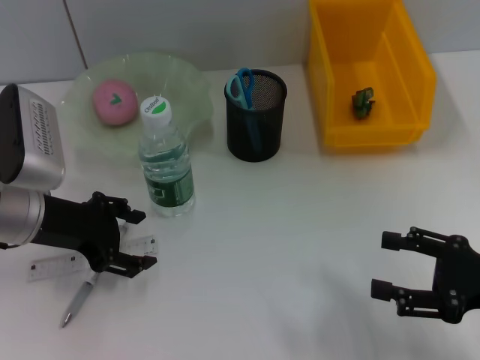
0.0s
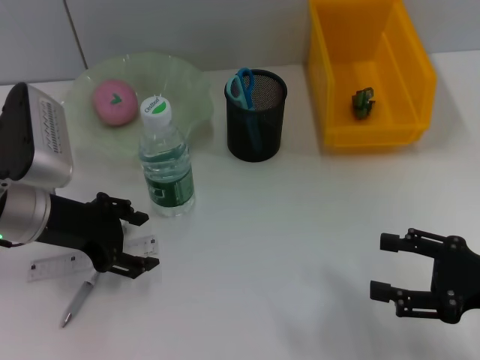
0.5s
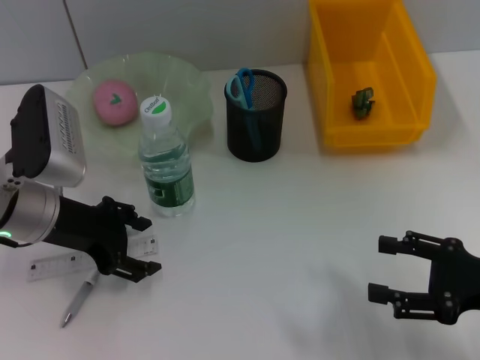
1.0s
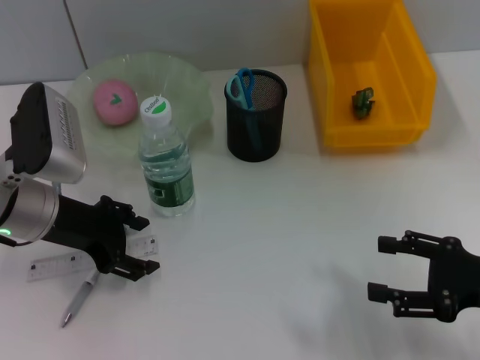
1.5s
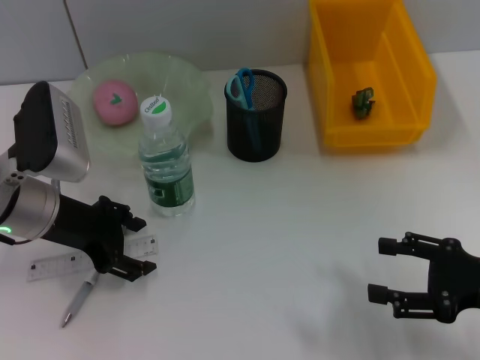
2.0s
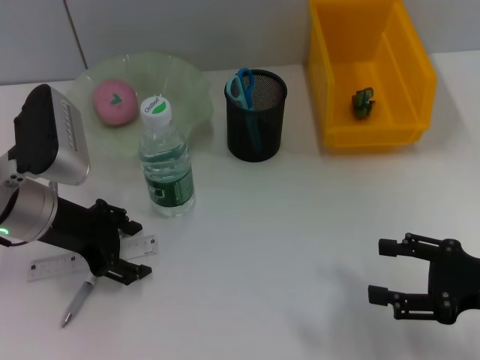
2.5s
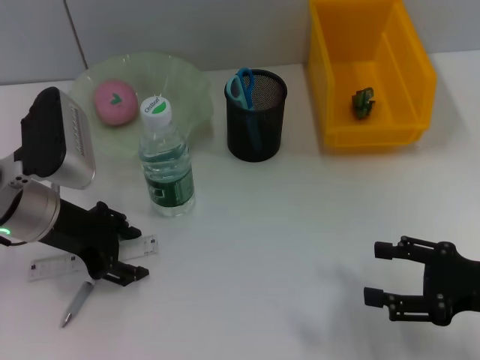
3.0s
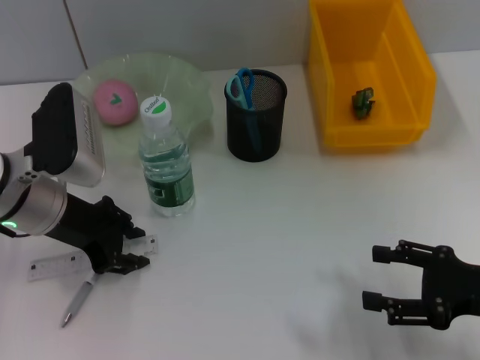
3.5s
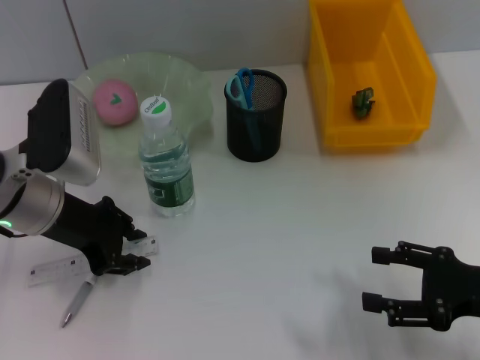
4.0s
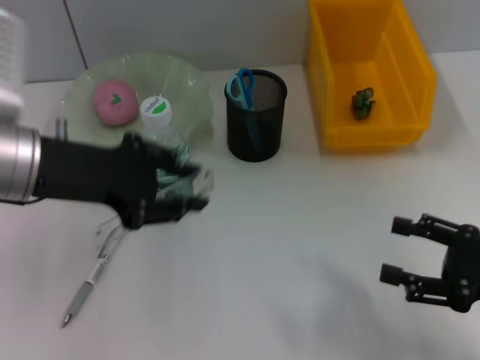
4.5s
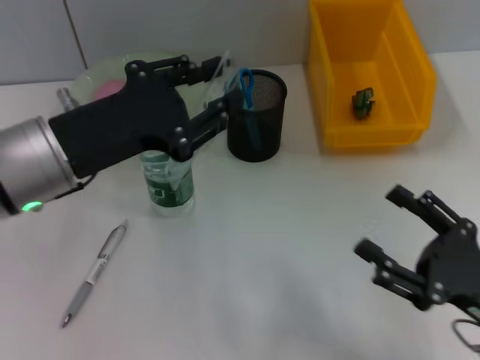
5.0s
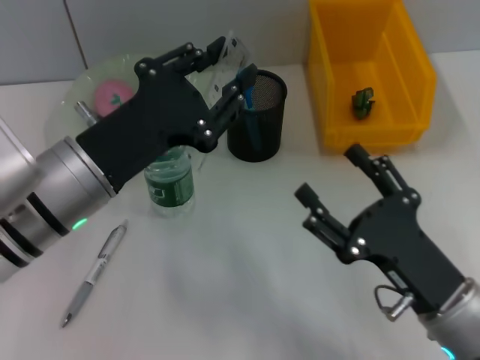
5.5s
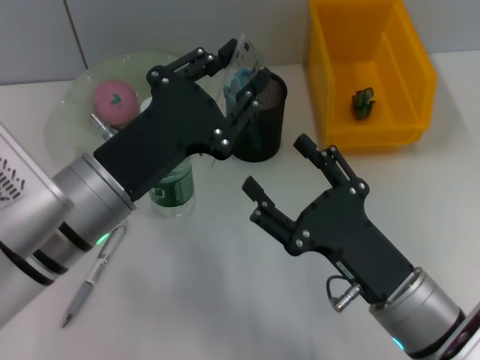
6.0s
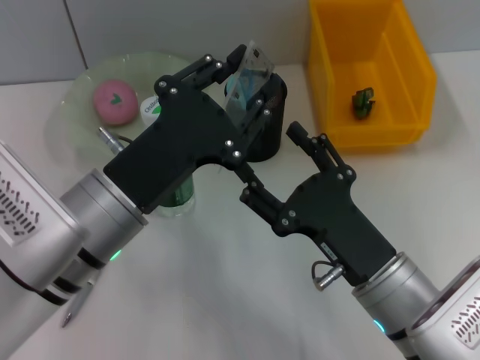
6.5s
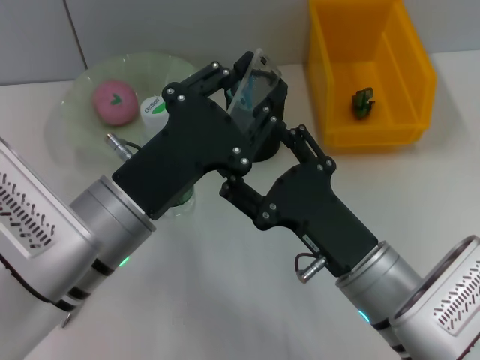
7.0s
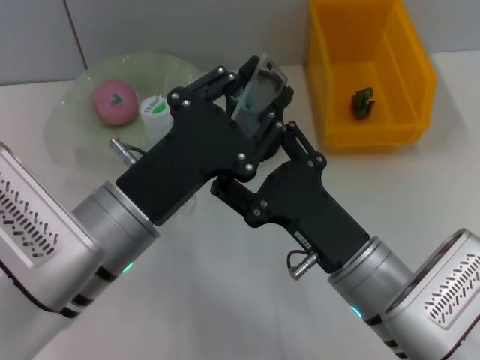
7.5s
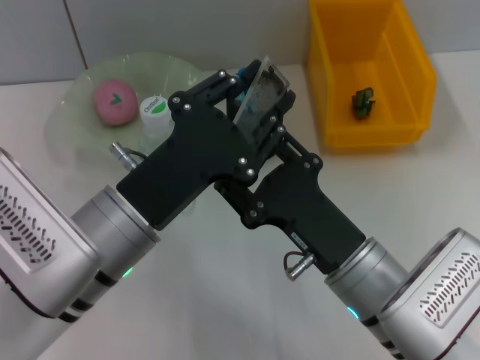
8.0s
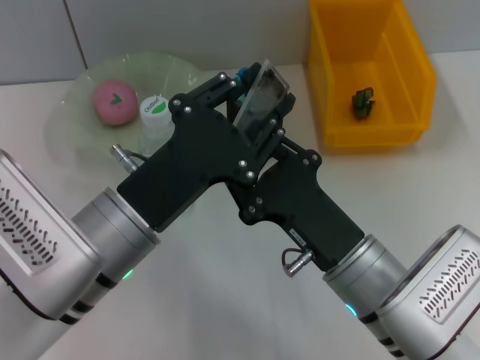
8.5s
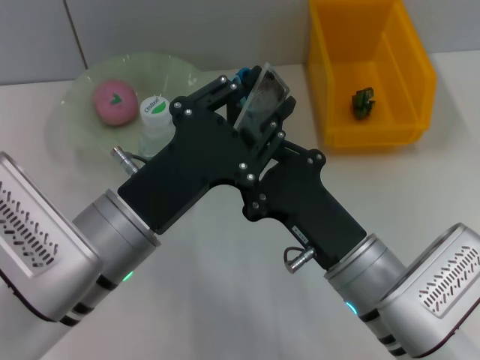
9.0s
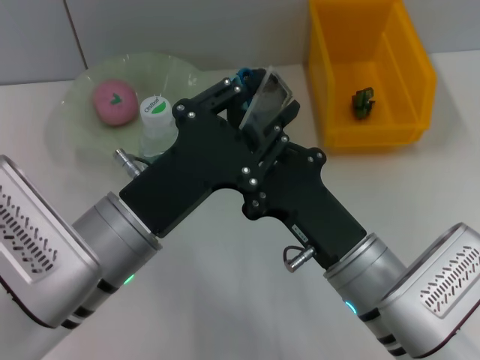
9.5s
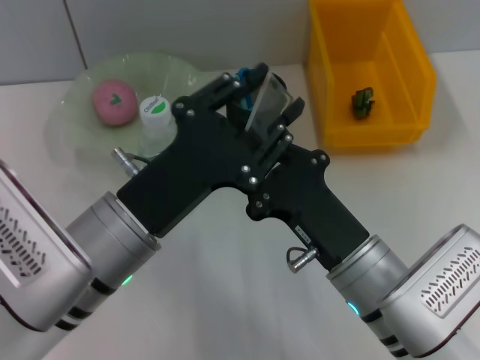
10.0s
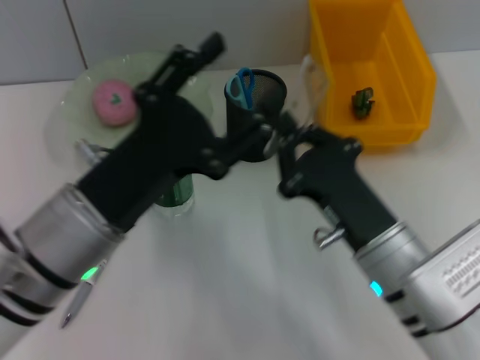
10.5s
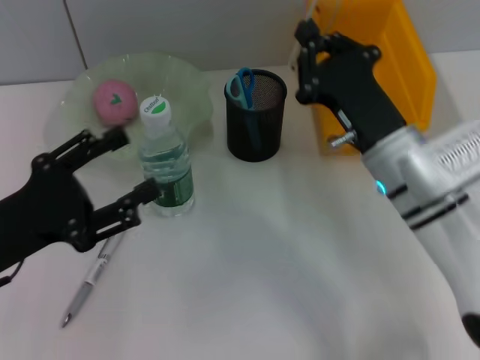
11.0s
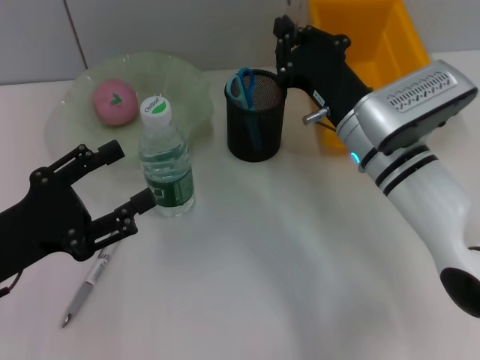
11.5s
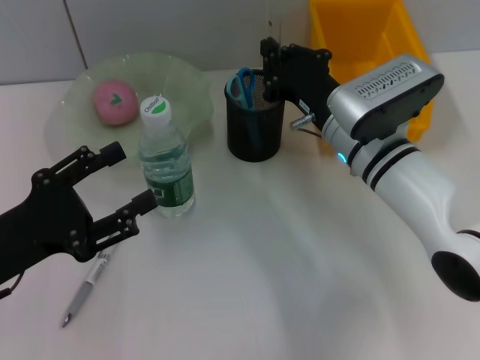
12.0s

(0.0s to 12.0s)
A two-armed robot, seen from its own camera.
Step, 0.0s - 3.5s: Grab the ruler with the left hand.
0.0s - 2.0s: The grippers stay close to where they were, moving slightly.
2.0s - 4.0s: The left gripper closes its fingers.
4.0s - 6.0s: The right gripper heads to the left, covering about 15 cm. The left gripper heads backward and to the right, covering some 10 cm.
8.0s - 10.0s: The right gripper closes.
10.0s - 12.0s: The right gripper travels forward by about 15 cm, while the left gripper heads to the left, covering approximately 15 cm.

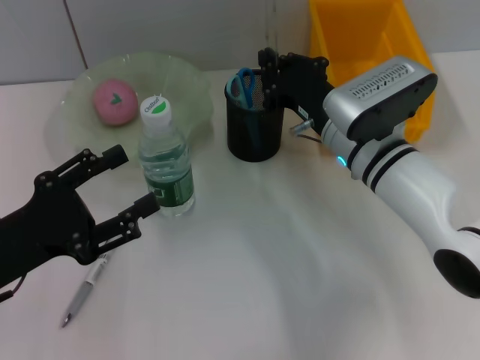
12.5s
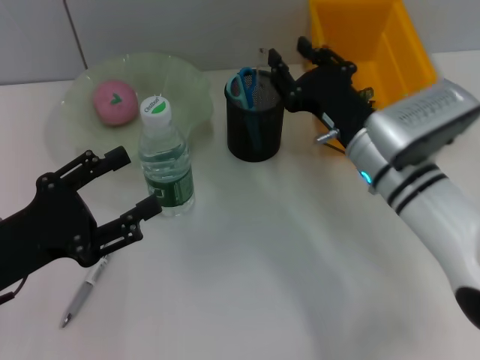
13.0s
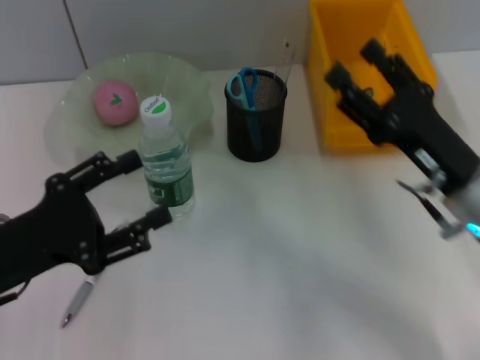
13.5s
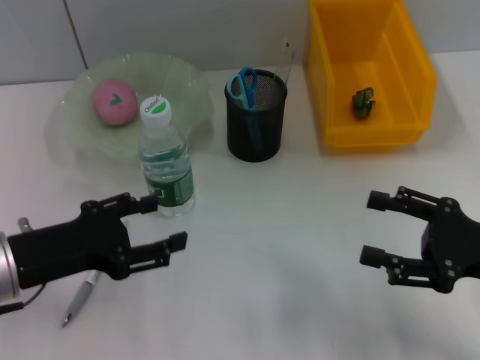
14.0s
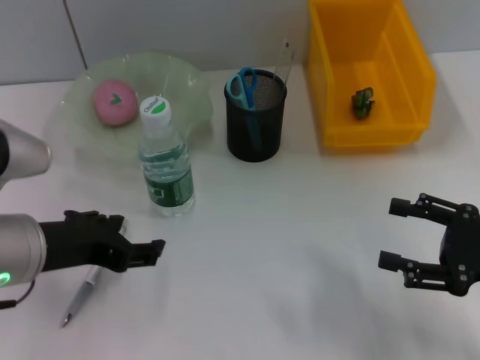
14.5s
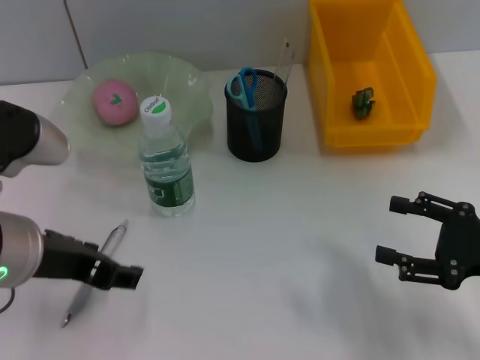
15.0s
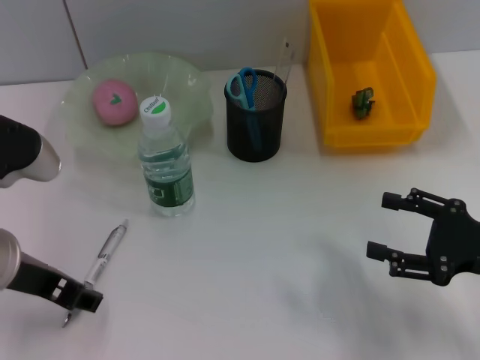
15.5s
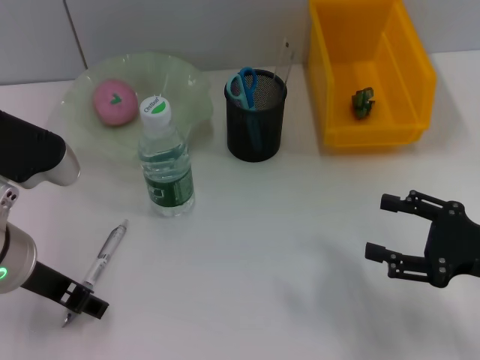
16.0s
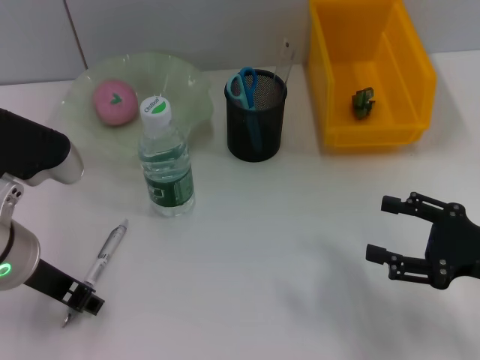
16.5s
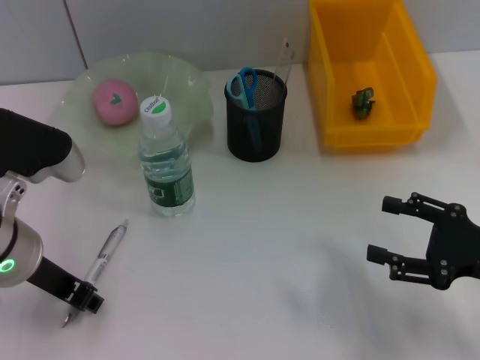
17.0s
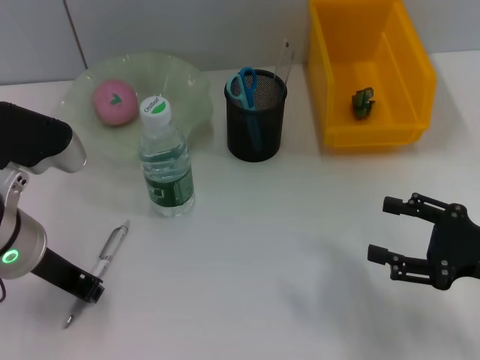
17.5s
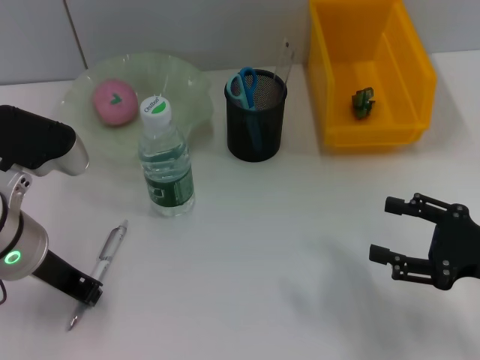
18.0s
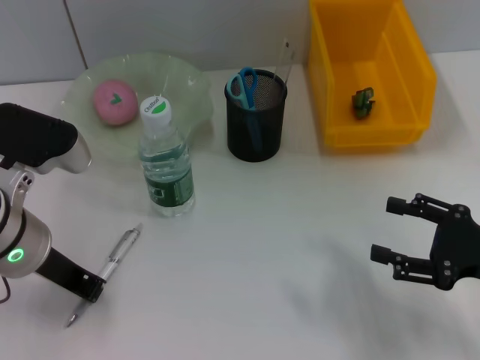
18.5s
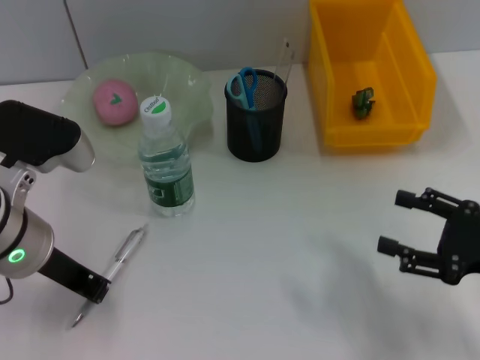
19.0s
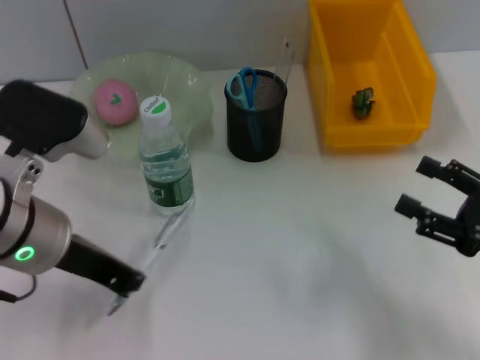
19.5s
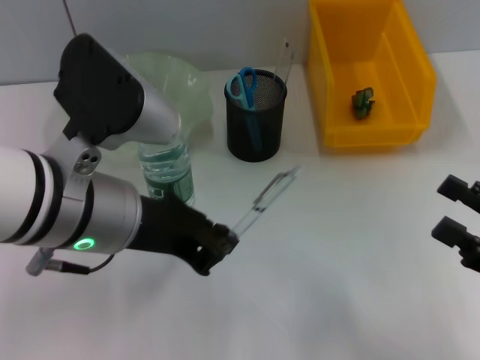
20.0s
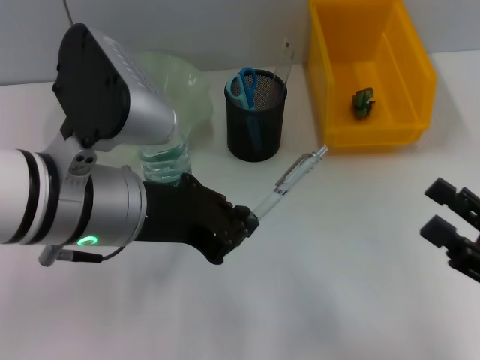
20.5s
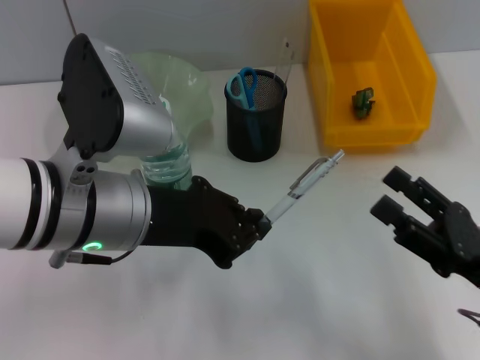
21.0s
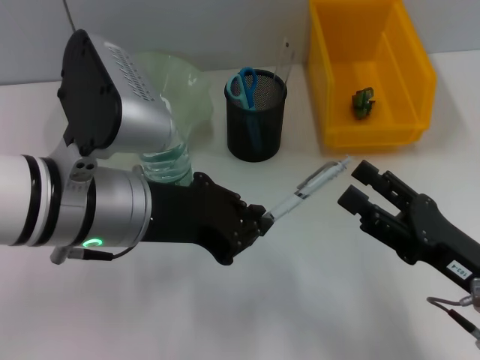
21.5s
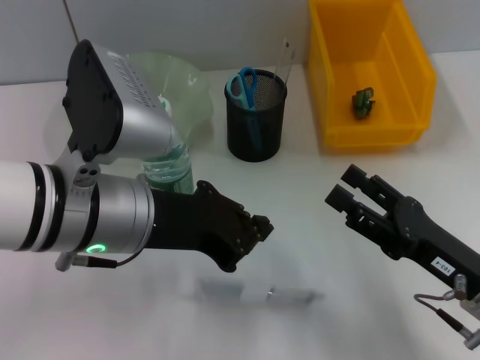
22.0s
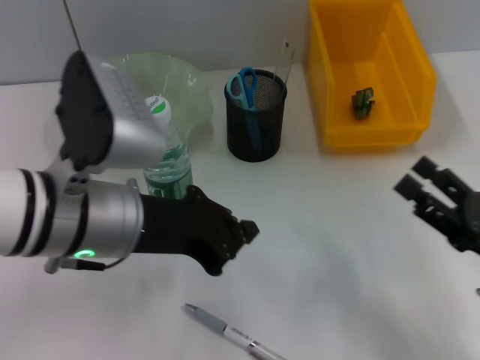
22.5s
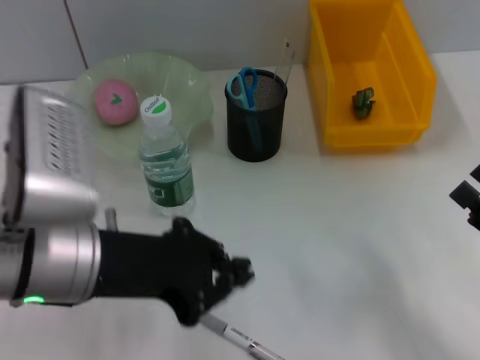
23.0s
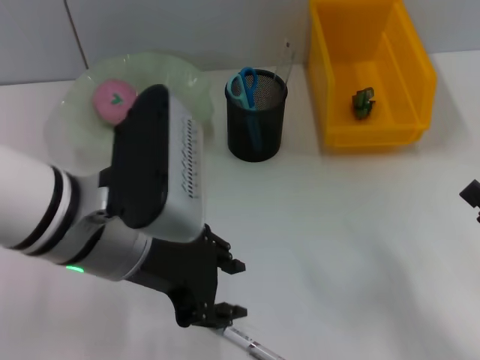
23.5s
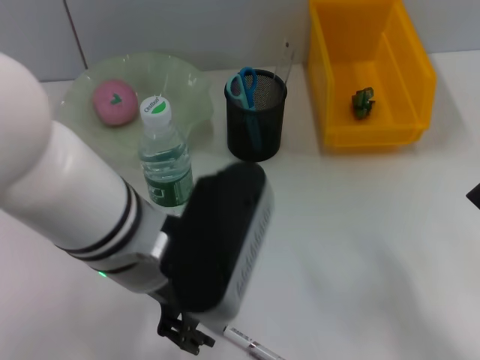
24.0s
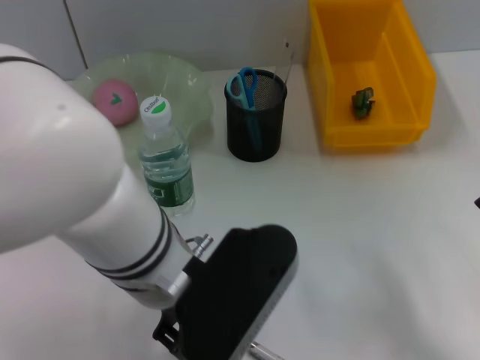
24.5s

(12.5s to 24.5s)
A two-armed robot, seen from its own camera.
12.5s - 14.5s: The right gripper is displaced to the right and backward by some 25 cm, and opens up; the left gripper goes roughly 10 cm to the right and upward.
16.5s - 18.5s: The left gripper closes.
18.5s - 20.5s: The right gripper is displaced backward by approximately 5 cm, while the left gripper goes about 10 cm to the right and upward.
22.5s - 24.5s: The left gripper heads to the right, covering roughly 5 cm, and opens its fingers, while the right gripper moves roughly 5 cm.

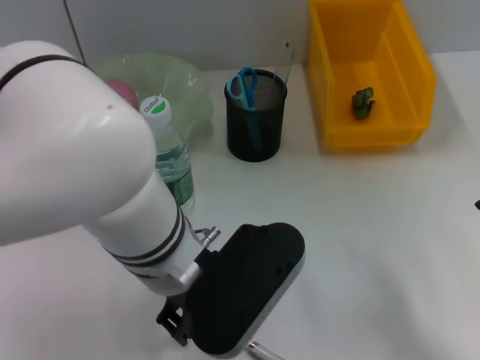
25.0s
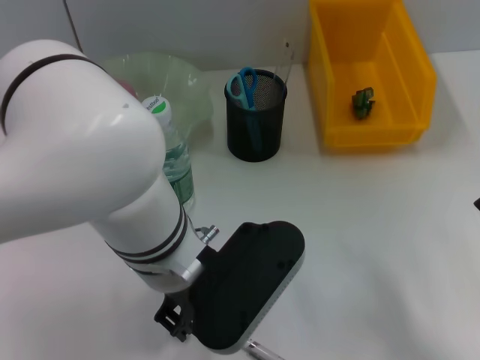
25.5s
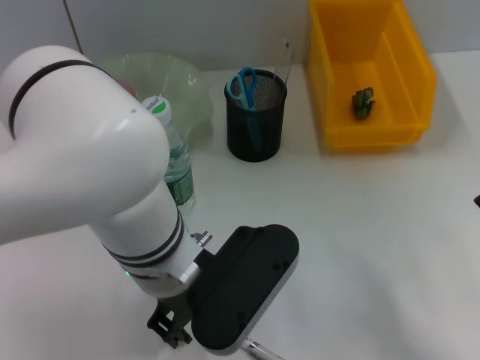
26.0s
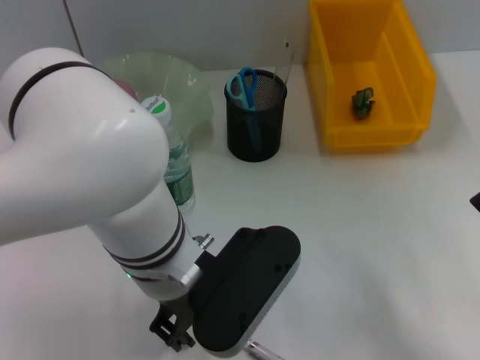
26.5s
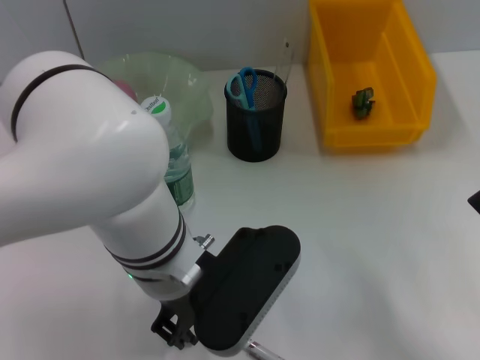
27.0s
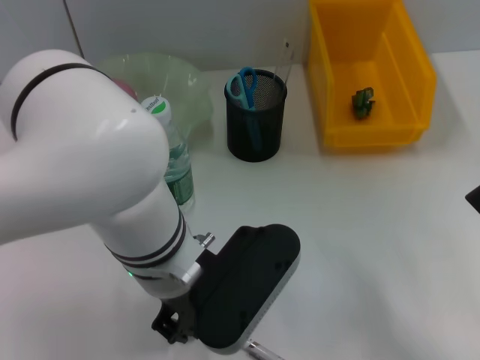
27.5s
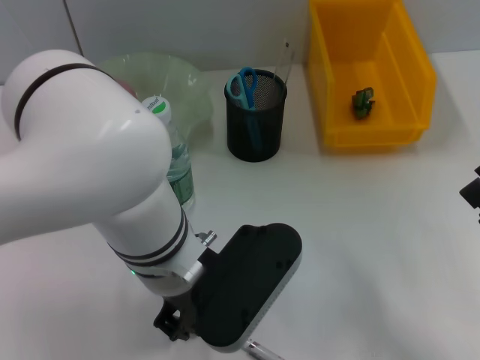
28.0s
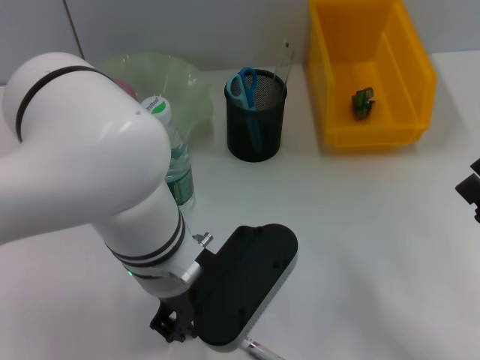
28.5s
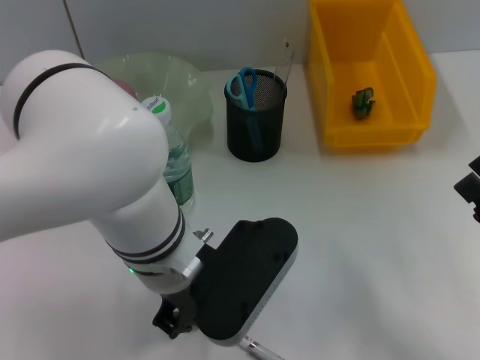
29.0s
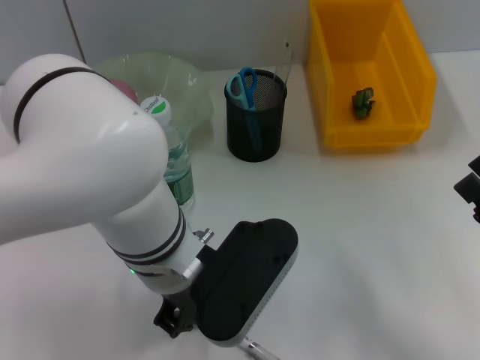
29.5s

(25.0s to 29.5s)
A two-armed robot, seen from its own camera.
25.0s - 27.0s: The grippers make only small movements.
27.0s - 29.5s: The left gripper closes its fingers.
